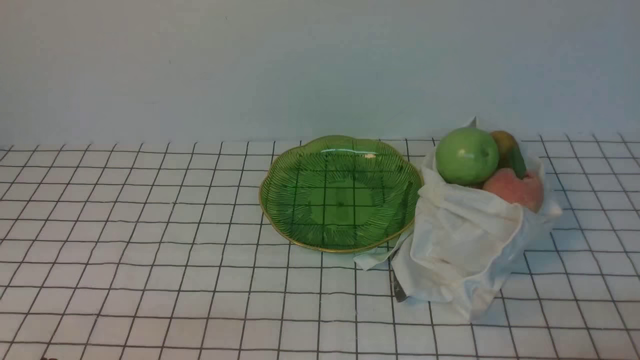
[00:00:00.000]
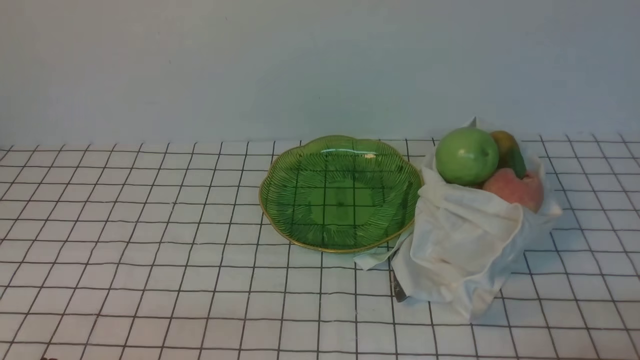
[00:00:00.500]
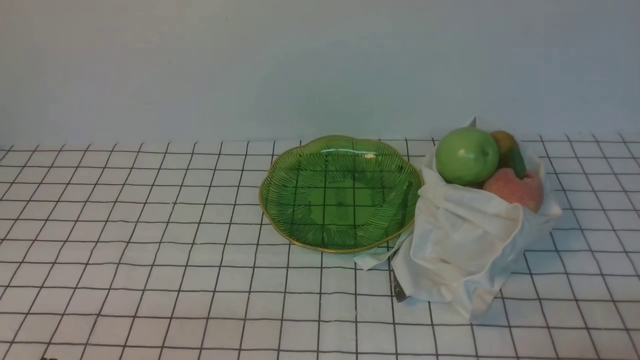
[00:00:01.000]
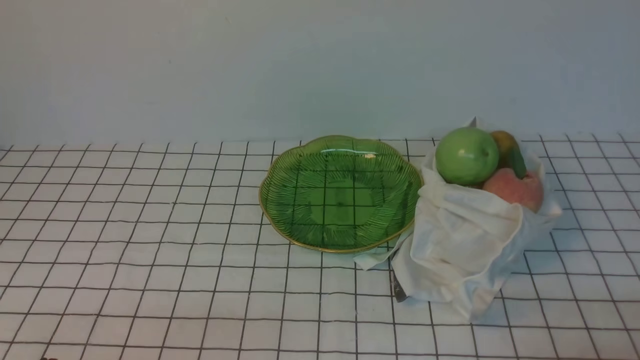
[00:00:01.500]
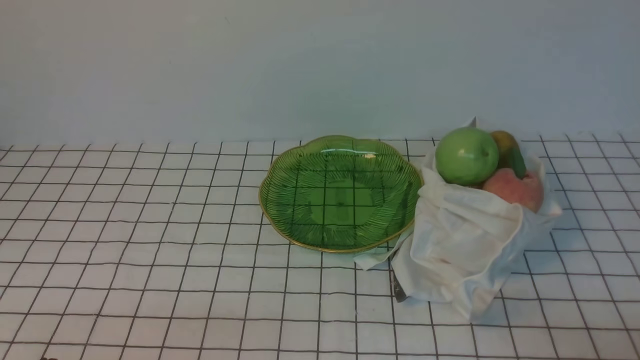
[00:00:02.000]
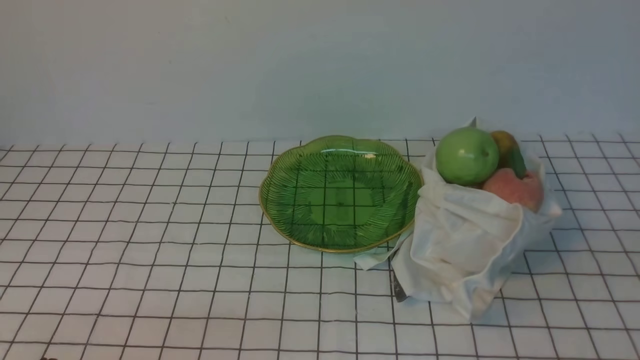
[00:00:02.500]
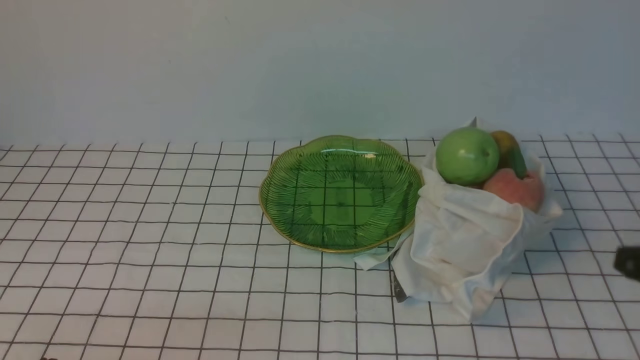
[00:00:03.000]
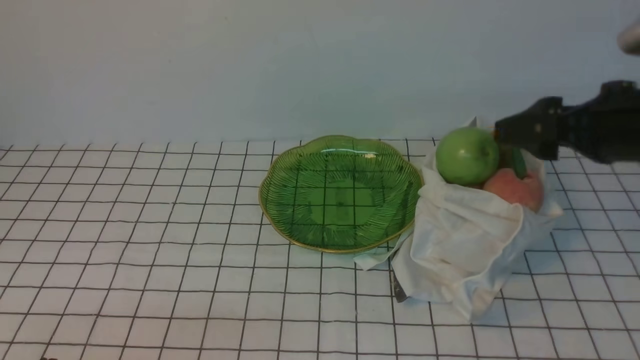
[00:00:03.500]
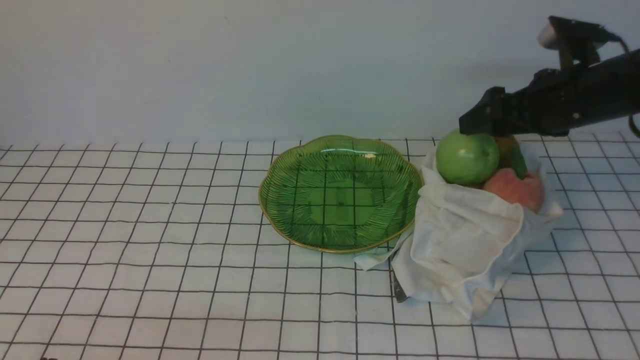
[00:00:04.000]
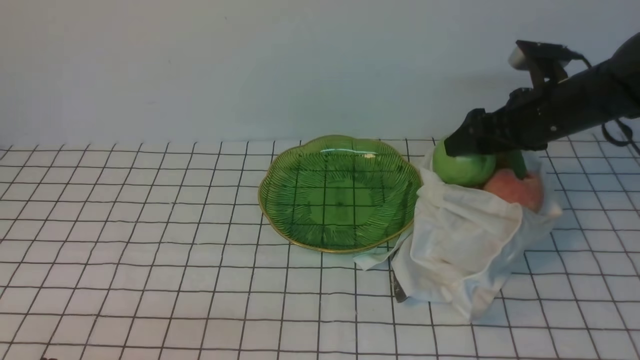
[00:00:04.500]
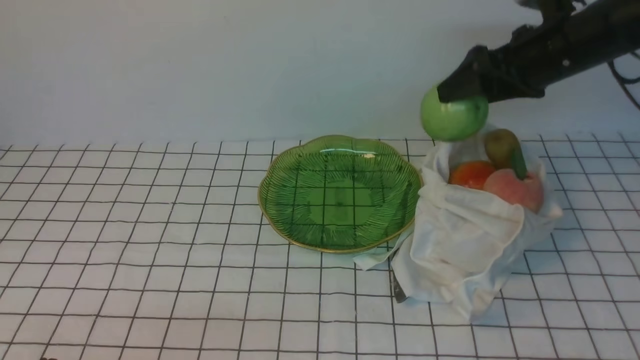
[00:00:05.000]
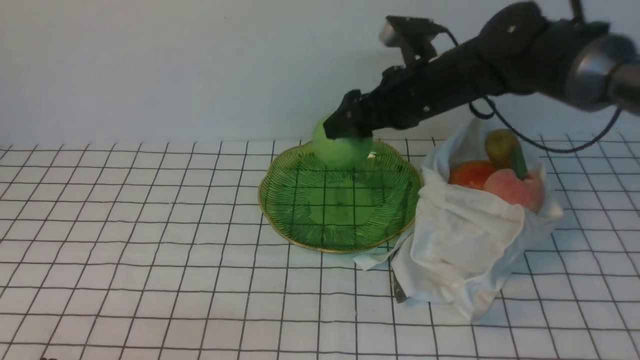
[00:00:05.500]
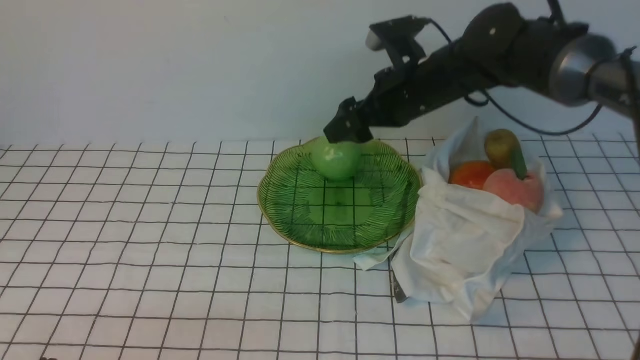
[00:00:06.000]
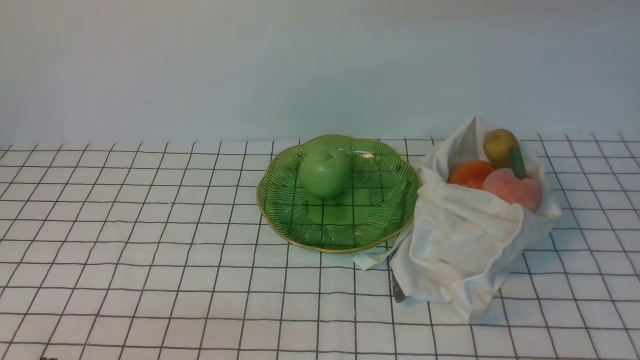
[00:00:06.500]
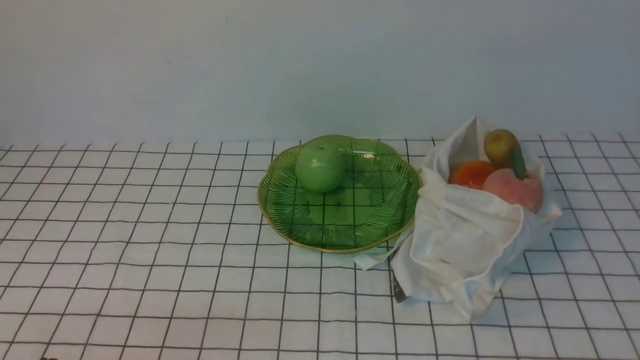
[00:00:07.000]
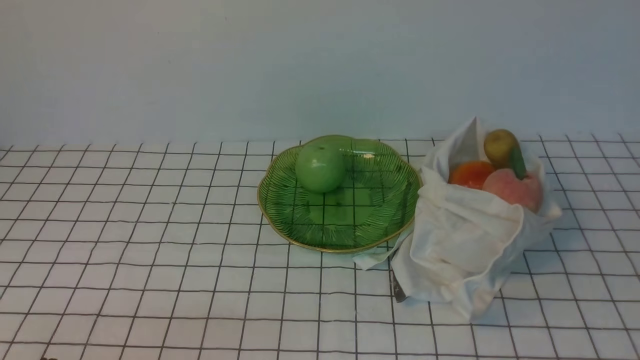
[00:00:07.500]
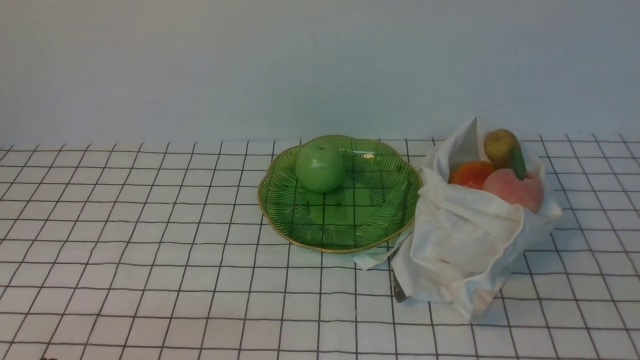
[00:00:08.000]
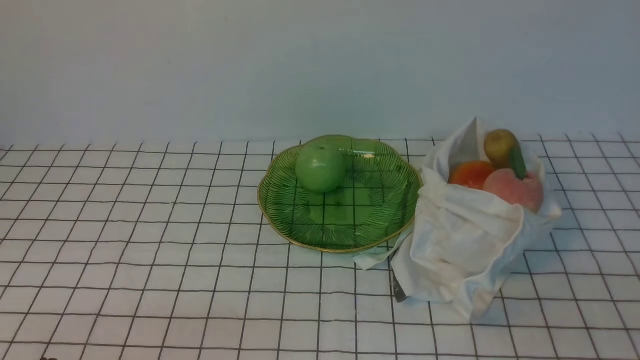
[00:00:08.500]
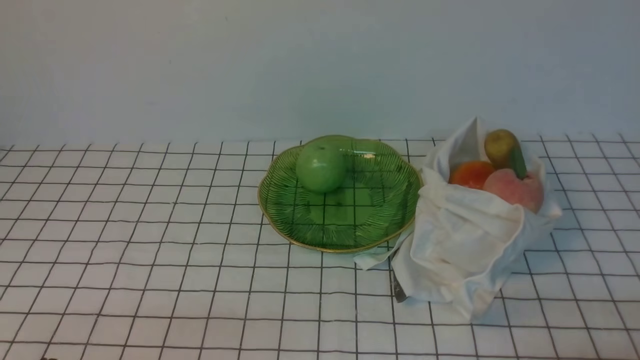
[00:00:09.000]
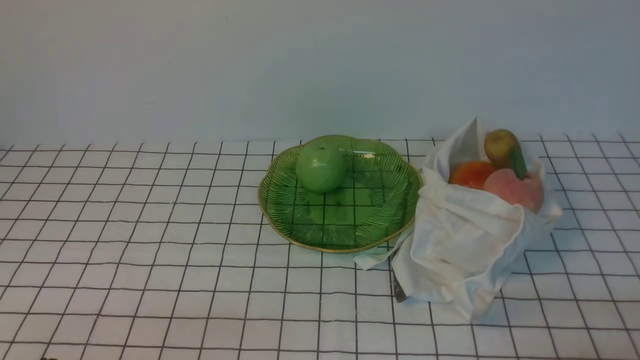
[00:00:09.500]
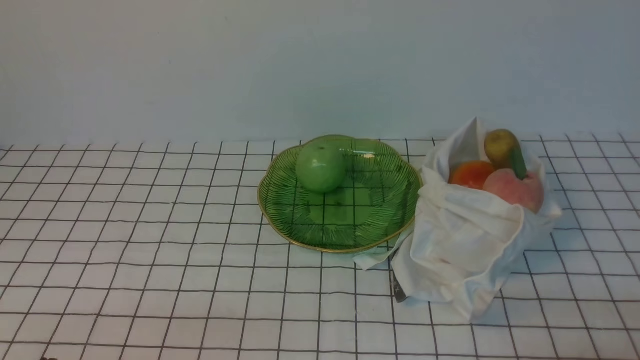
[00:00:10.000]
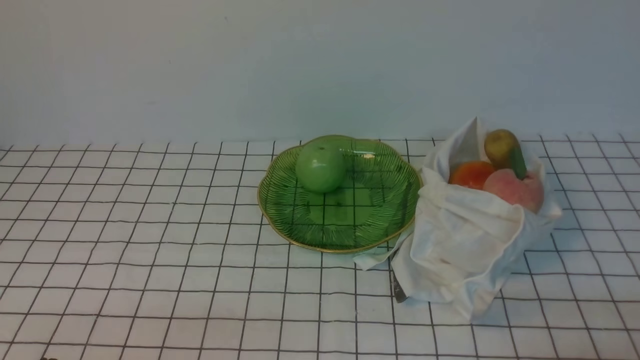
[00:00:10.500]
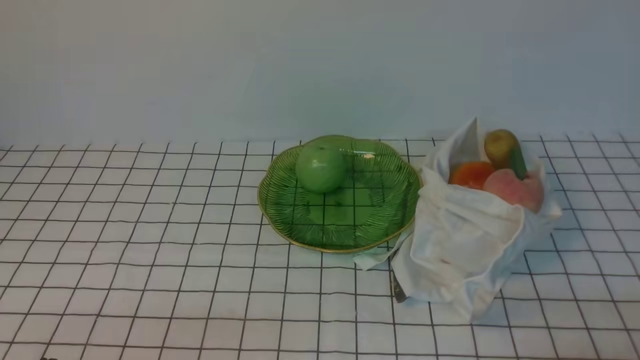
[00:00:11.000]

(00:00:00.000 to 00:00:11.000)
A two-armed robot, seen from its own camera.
Step, 00:00:00.000 - 00:00:04.500: use the right arm to grab an apple from the bag.
Step, 00:00:05.000 - 00:00:06.000: use the right arm to put the apple into the empty plate on the left.
00:00:02.000 - 00:00:03.500: The right gripper is displaced forward and upward by roughly 25 cm, and opens.
00:00:03.500 - 00:00:05.500: The right gripper goes roughly 20 cm forward and to the left.
00:00:05.500 - 00:00:07.500: The right gripper shifts some 40 cm backward and to the right, and closes.
00:00:09.000 - 00:00:11.000: The two grippers keep their place.
